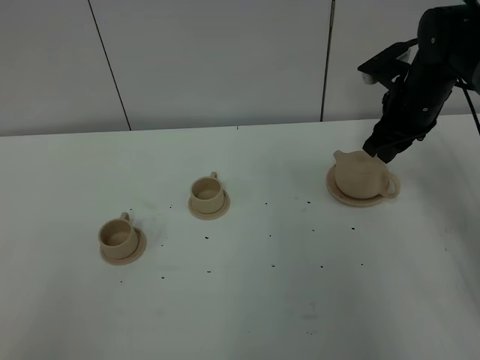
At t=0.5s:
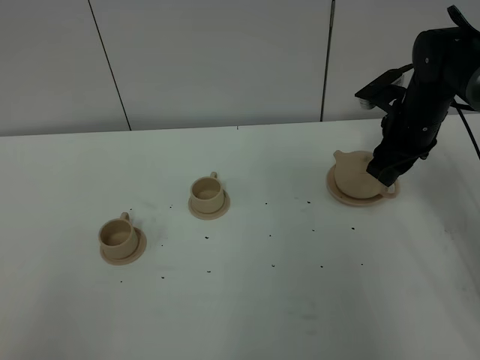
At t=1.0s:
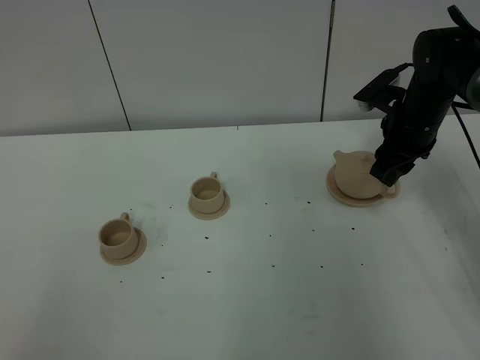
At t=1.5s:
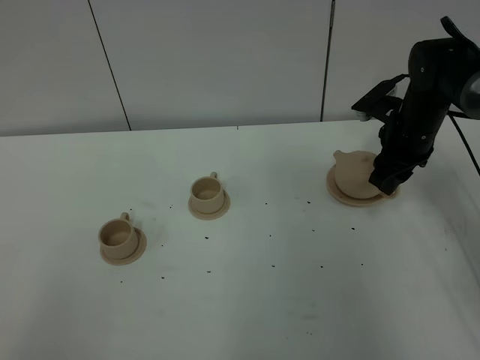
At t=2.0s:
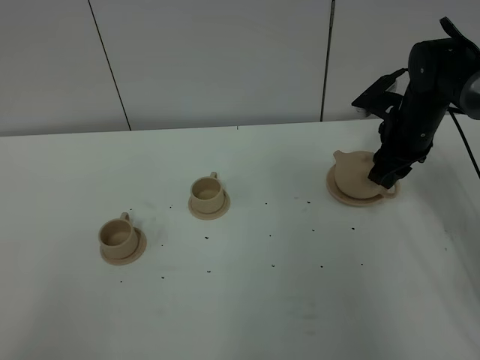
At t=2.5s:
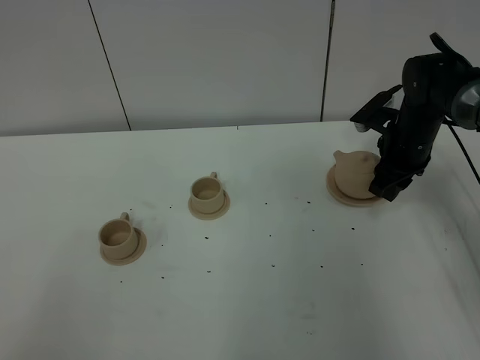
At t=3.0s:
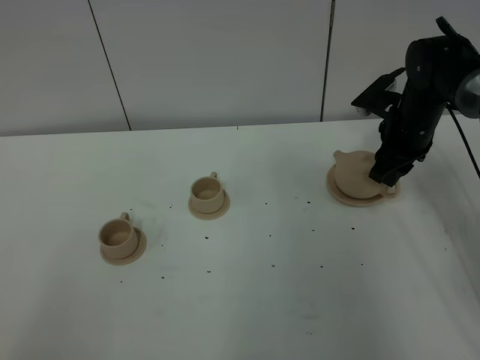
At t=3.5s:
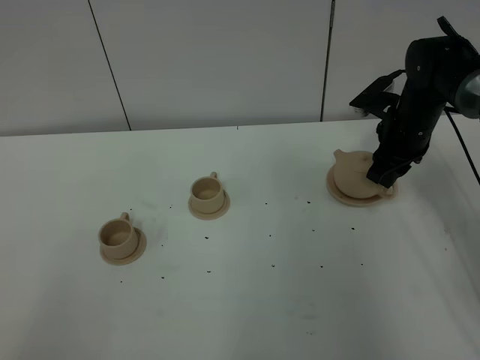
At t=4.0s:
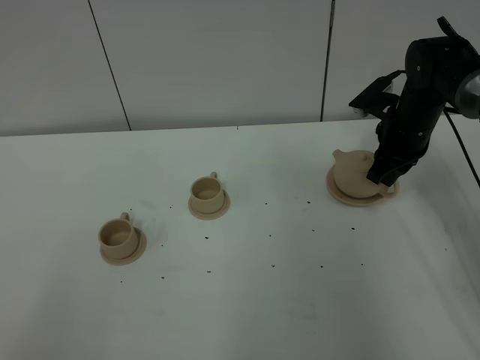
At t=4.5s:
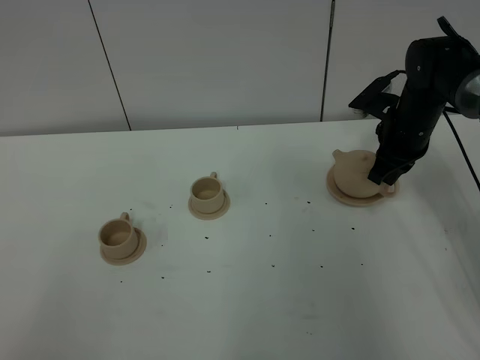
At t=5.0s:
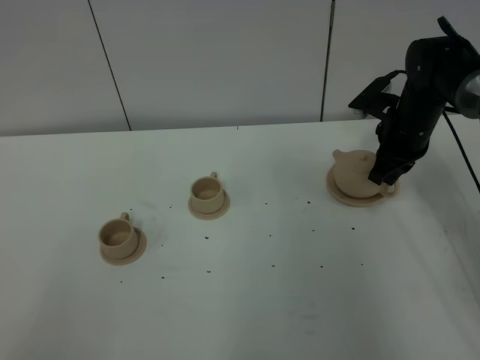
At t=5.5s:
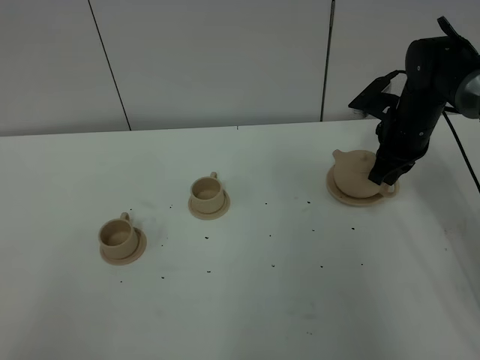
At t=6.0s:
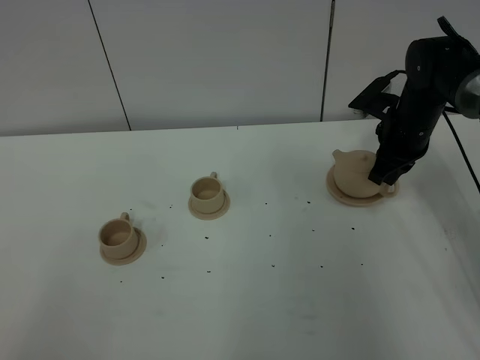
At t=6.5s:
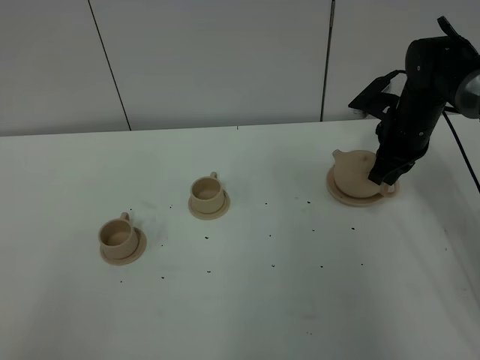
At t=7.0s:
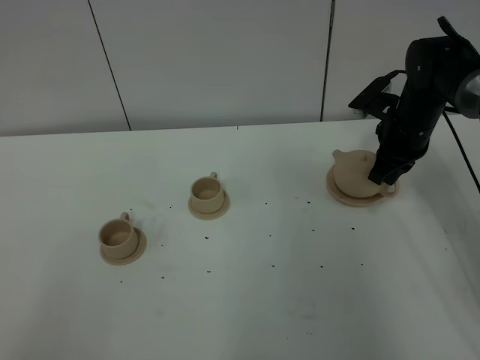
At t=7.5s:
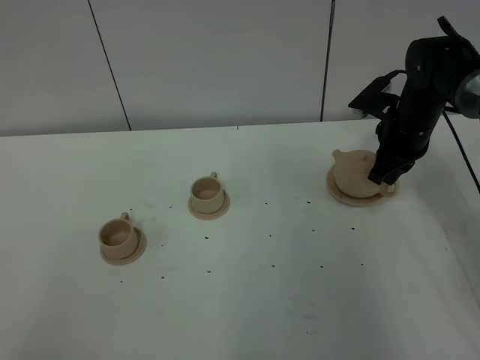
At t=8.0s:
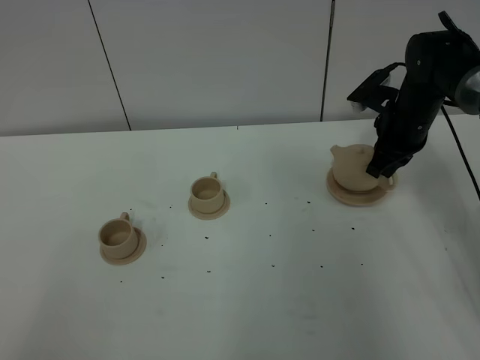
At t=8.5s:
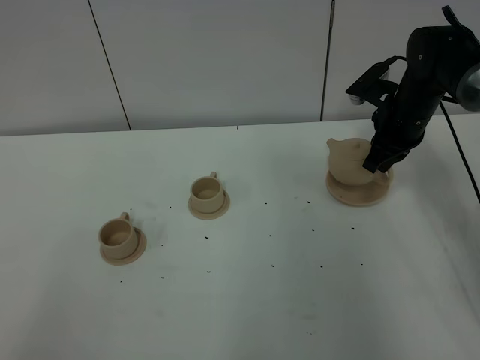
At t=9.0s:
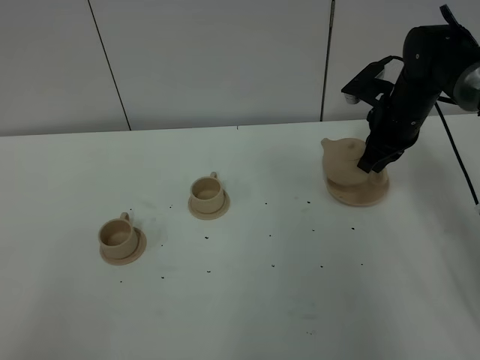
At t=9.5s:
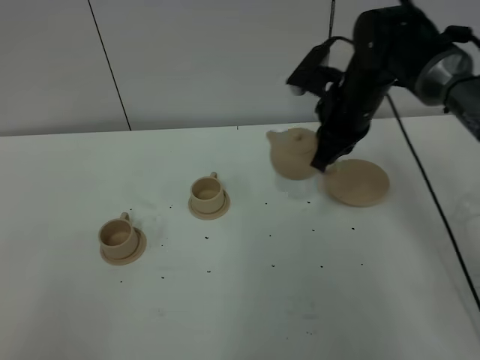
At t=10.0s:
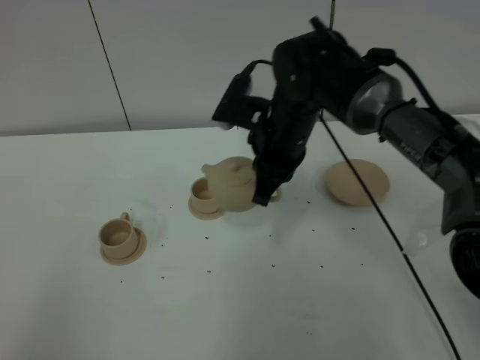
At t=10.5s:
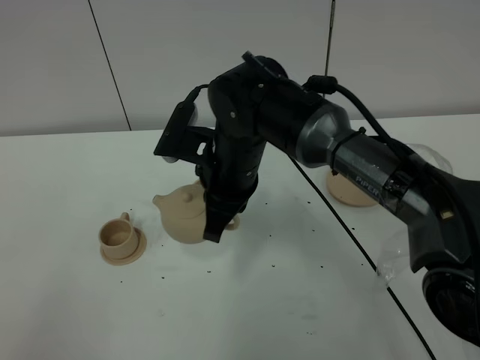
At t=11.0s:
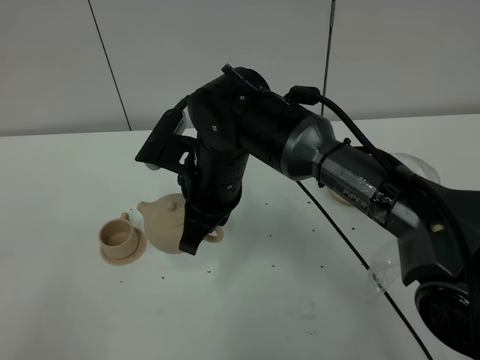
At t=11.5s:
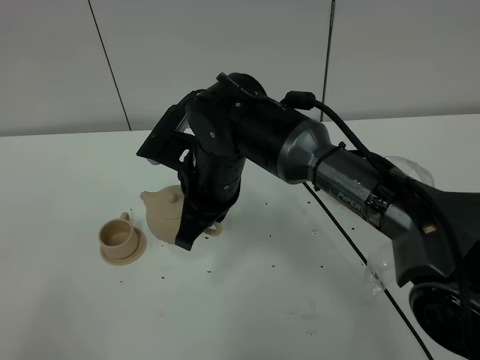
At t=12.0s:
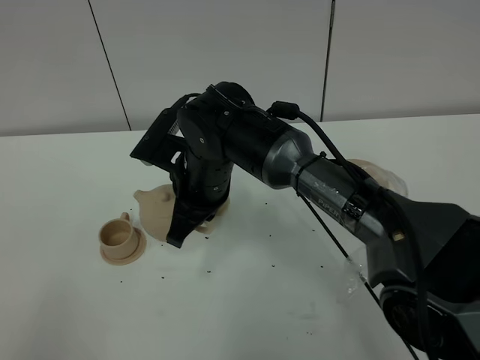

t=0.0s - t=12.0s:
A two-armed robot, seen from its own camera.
Task of the whole recording: grasp the brown teapot and pour the tea into the two brown teacups one by one, put the brown teapot back in its original place.
Step, t=0.0s - t=8.0s: Pick up the teapot with the right gripper.
t=0.0s - t=2.0s: The grippers make only small movements.
t=2.0s - t=4.0s: The right gripper closes.
t=4.0s - t=8.0s: Both grippers stay about where they are.
t=8.0s - t=10.0s: The right gripper shifts some 20 cm to the left and backward.
t=10.0s - t=12.0s: The right gripper heads to the left, covering about 10 cm.

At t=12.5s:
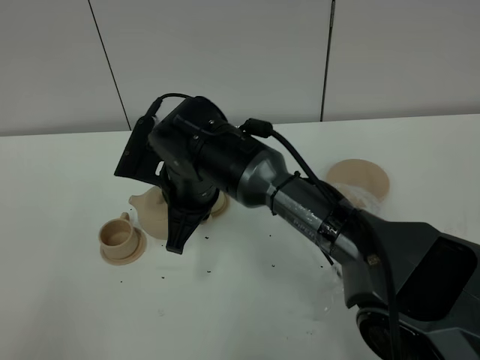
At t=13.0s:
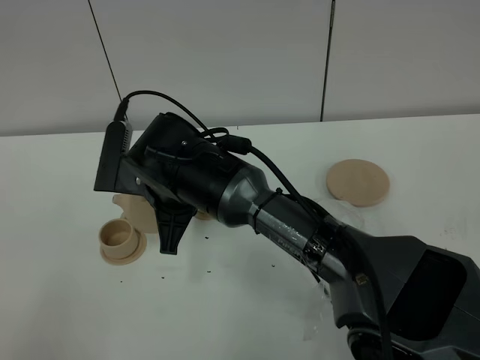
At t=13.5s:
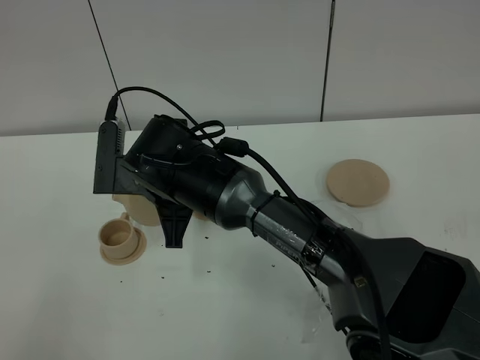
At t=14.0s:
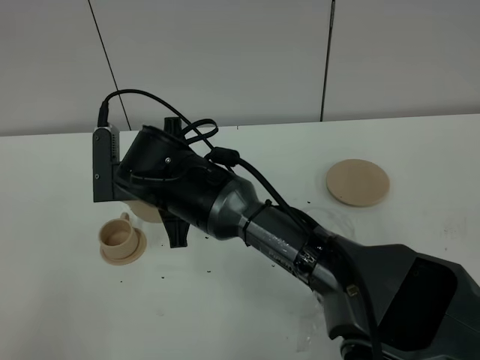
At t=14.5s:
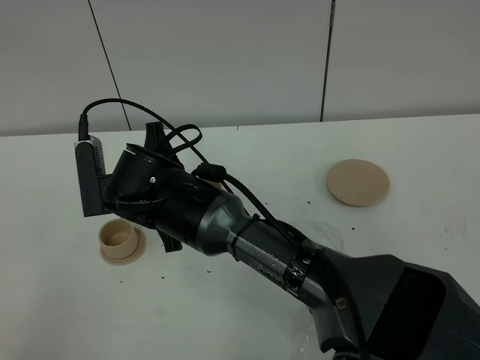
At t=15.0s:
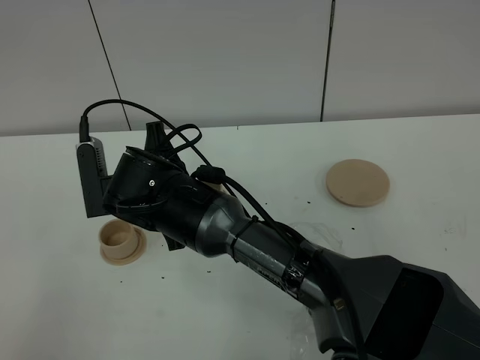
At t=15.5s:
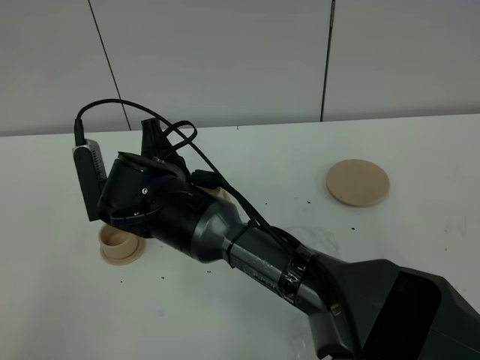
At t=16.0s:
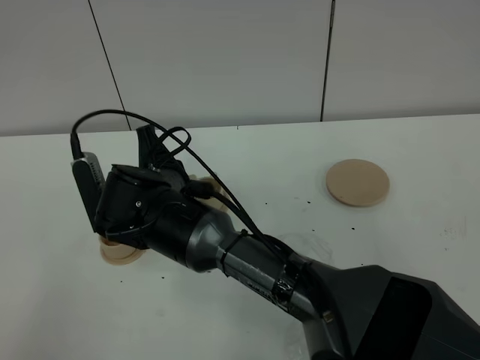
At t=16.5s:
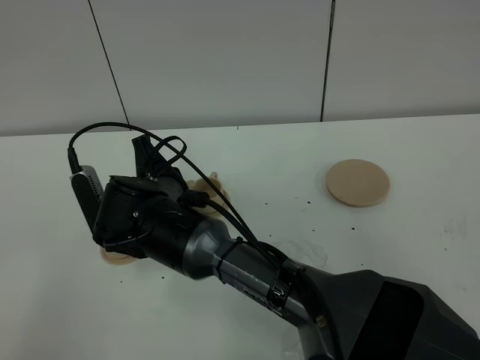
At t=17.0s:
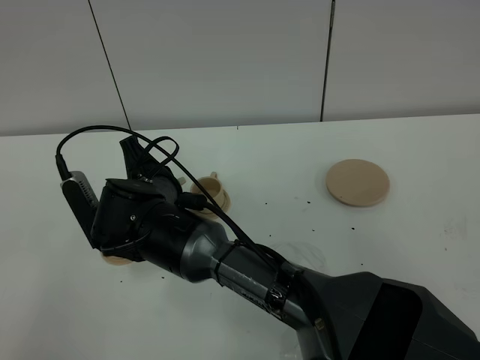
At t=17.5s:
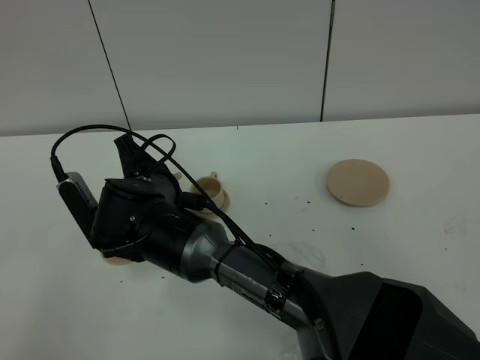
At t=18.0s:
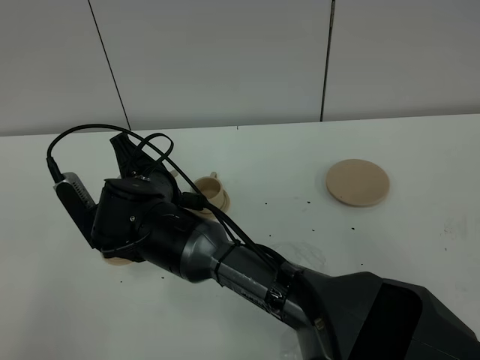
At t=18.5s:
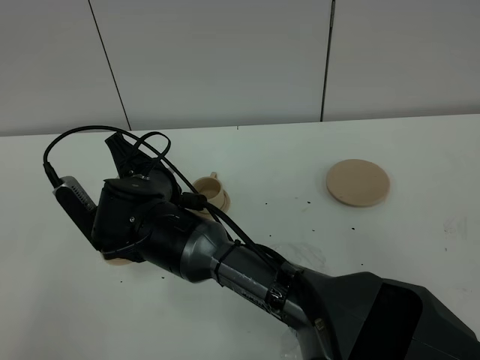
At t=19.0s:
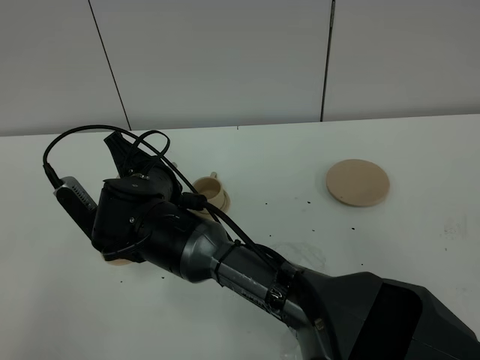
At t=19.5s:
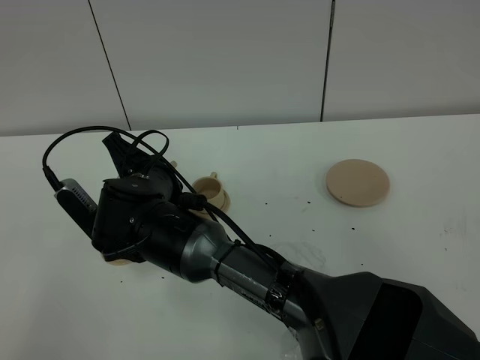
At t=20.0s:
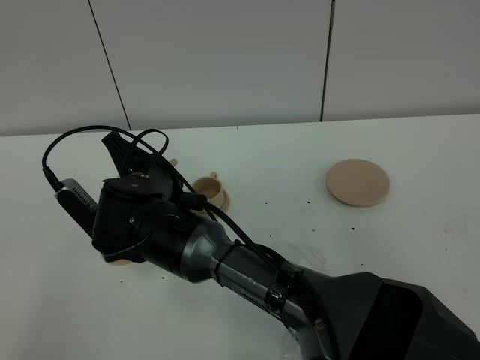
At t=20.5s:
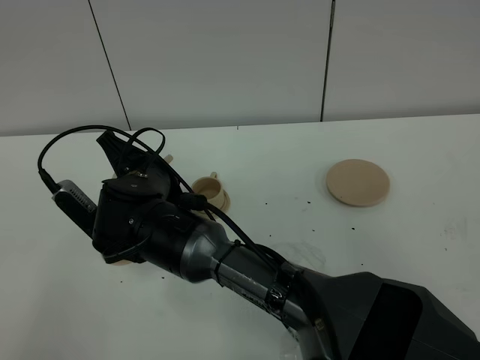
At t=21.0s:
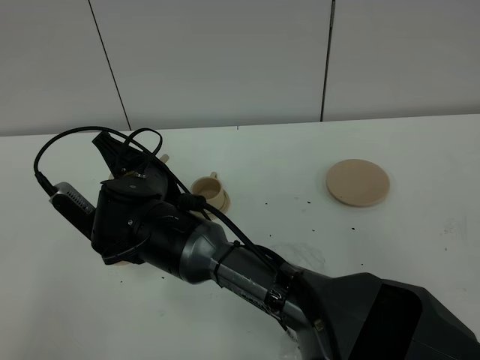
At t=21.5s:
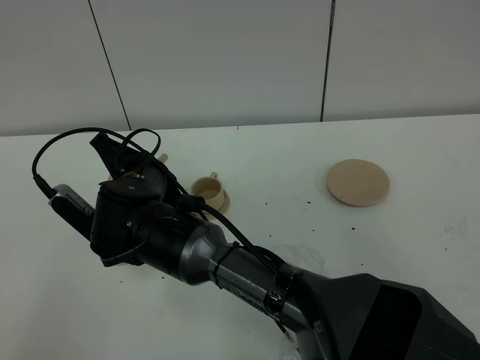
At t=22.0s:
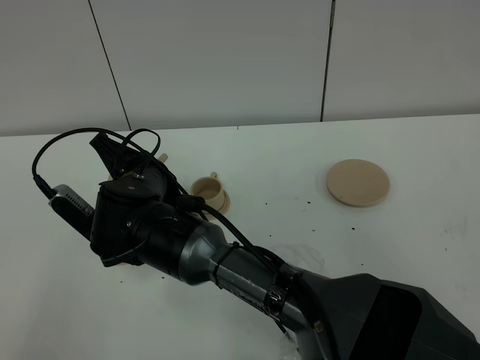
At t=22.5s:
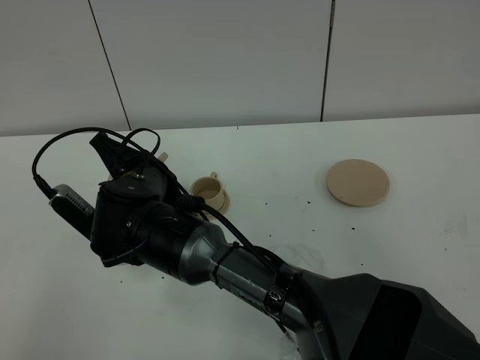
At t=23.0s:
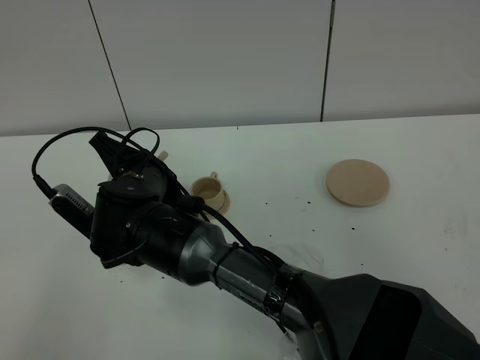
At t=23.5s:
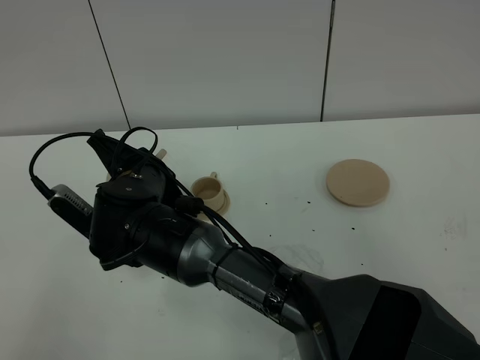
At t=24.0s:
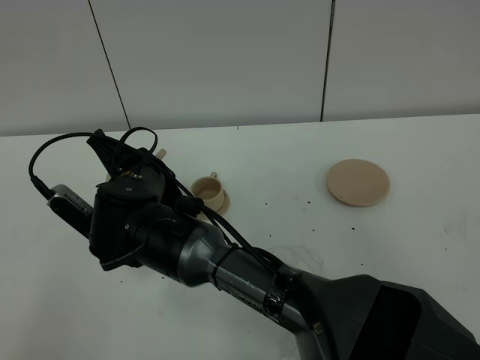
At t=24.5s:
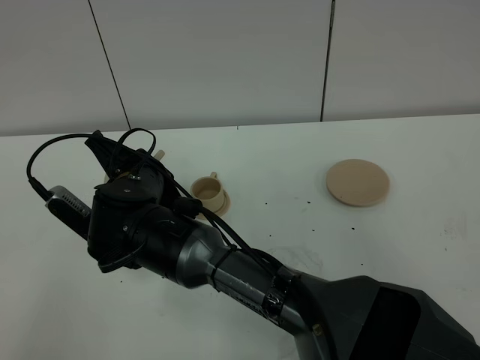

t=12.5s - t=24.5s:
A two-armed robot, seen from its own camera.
Task of the whole recording: grasp the brown teapot and pour the tea into the two brown teacups one by one, put the brown teapot back in its original place.
t=14.5s - t=16.5s: The grippers move only a little.
t=16.5s - t=18.5s: There are only small adjustments of the grippers.
t=18.5s - t=20.5s: The grippers move only a little.
t=20.5s - t=24.5s: Neither gripper changes place.

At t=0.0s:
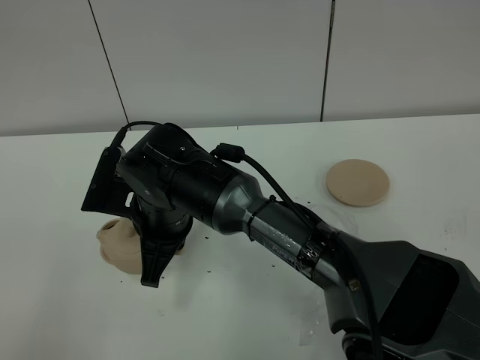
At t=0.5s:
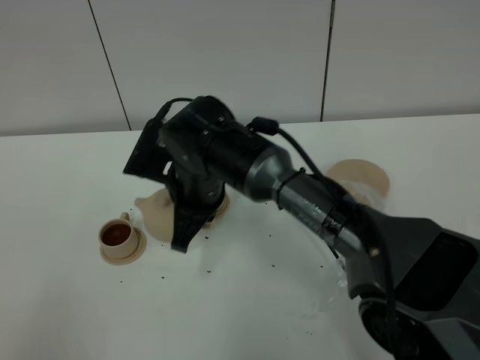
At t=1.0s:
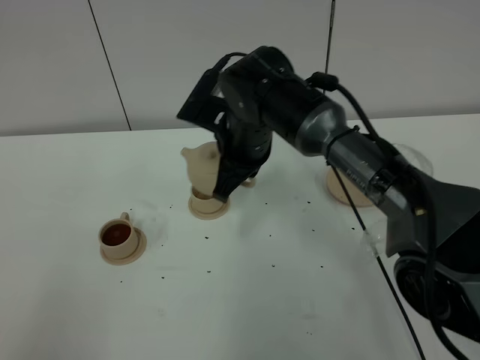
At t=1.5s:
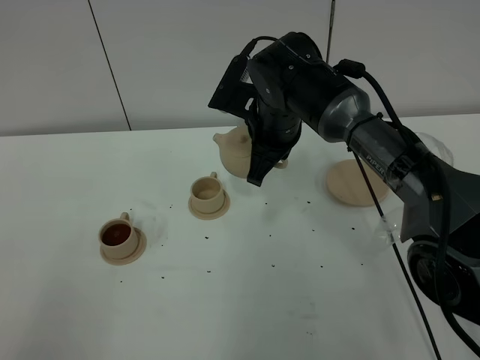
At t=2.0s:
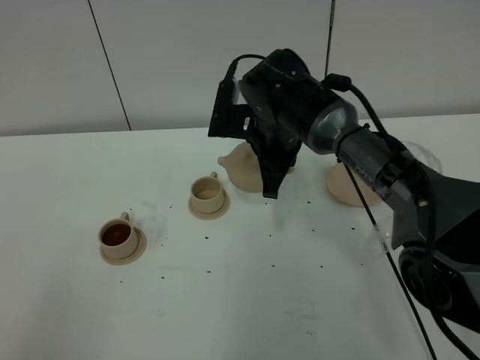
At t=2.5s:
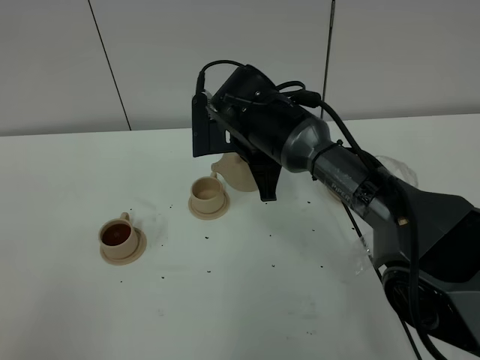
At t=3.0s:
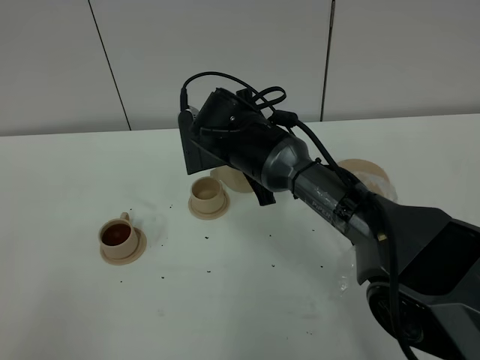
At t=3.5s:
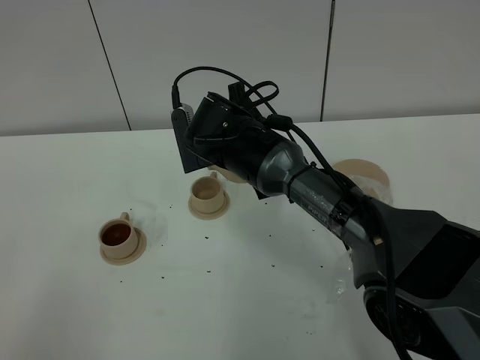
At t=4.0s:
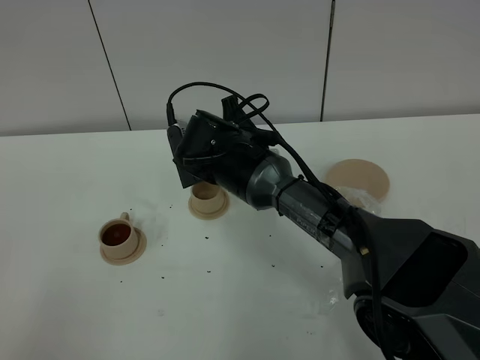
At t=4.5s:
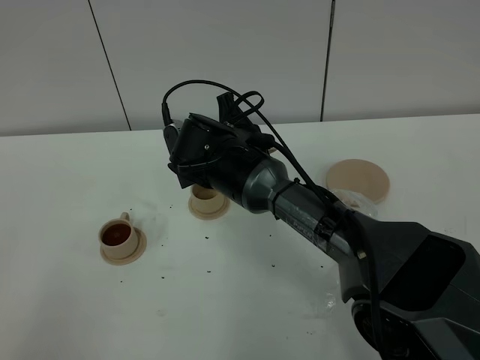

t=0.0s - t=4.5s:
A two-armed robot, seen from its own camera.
Task of the whole recording: grasp the brown teapot and pour the tea into the two brown teacups one by one, put the brown teapot back in its original place.
t=0.0s - t=2.0s: The right gripper moves to the right and forward, some 20 cm.
t=2.0s - t=4.5s: The right gripper shifts roughly 5 cm to the left.
